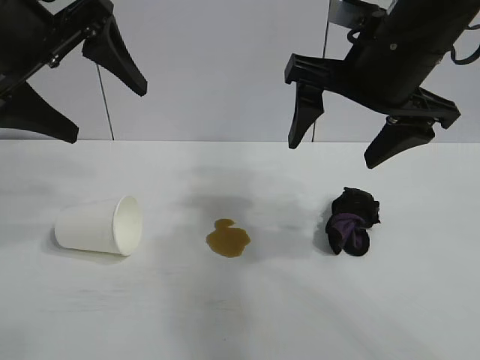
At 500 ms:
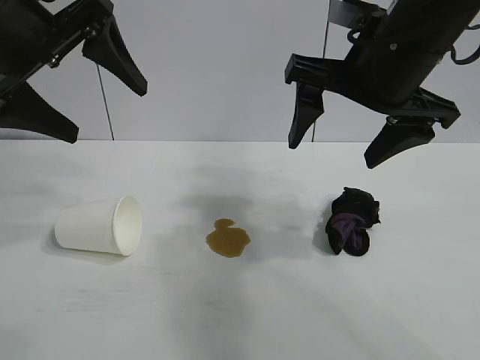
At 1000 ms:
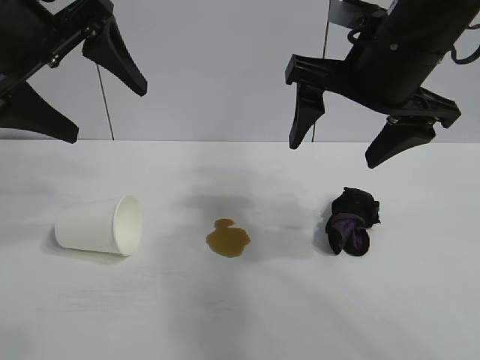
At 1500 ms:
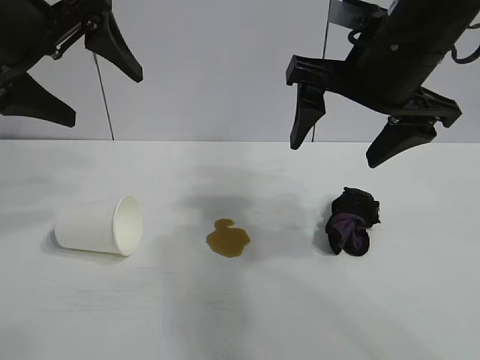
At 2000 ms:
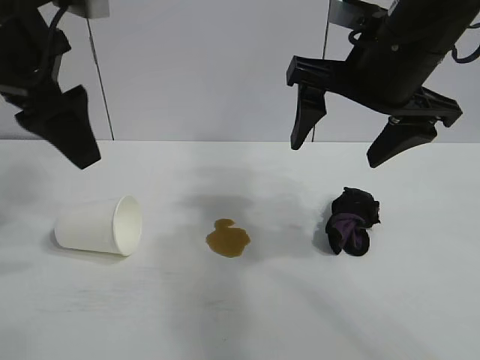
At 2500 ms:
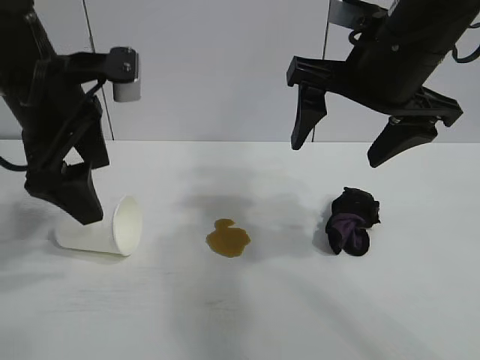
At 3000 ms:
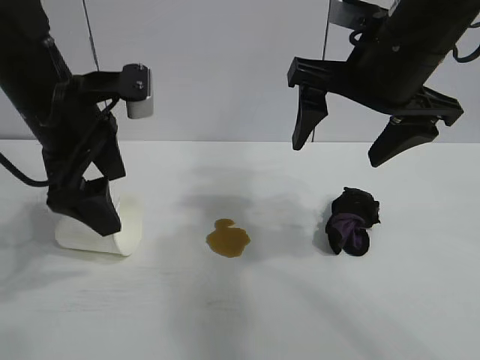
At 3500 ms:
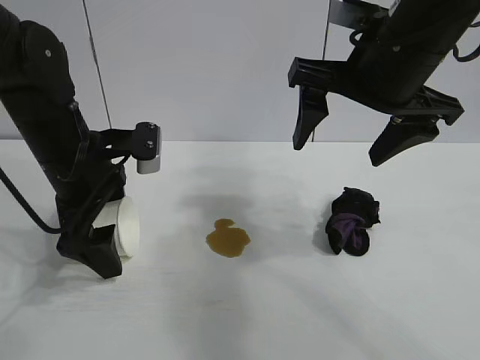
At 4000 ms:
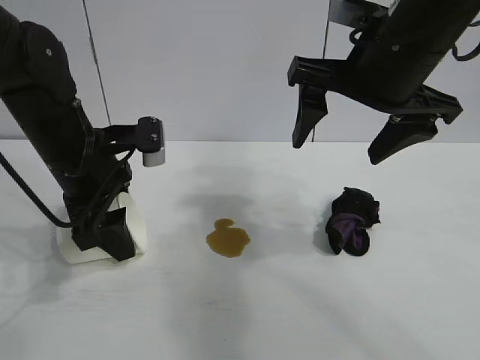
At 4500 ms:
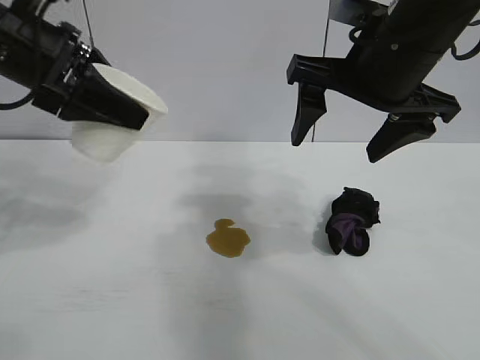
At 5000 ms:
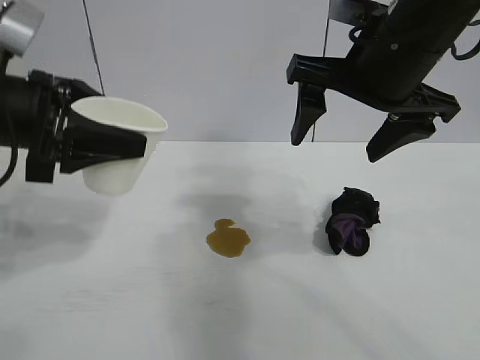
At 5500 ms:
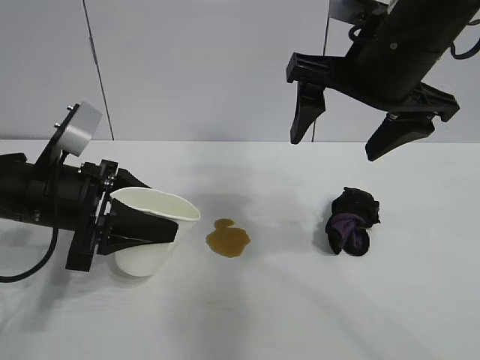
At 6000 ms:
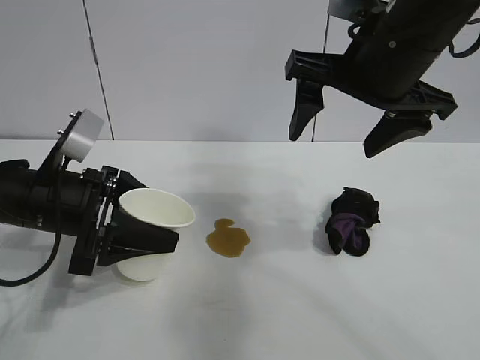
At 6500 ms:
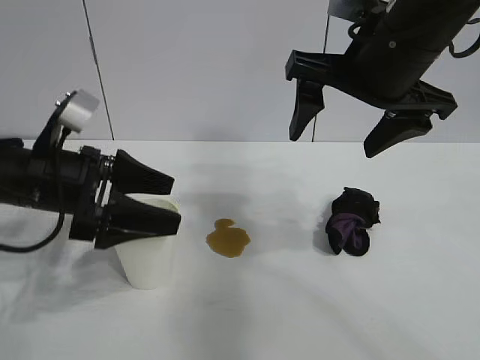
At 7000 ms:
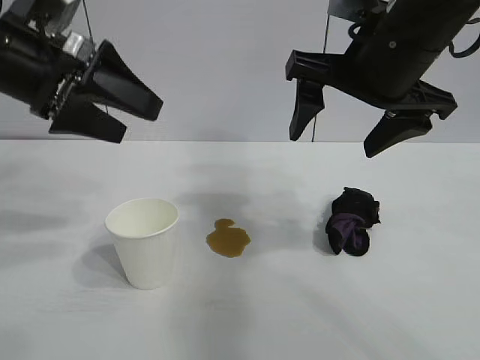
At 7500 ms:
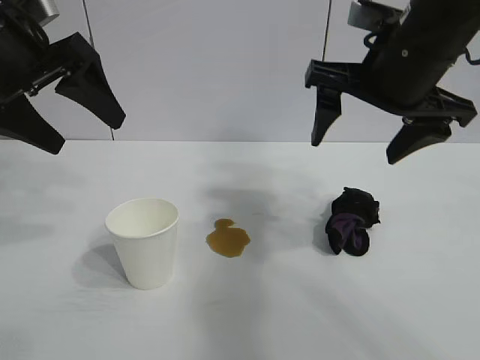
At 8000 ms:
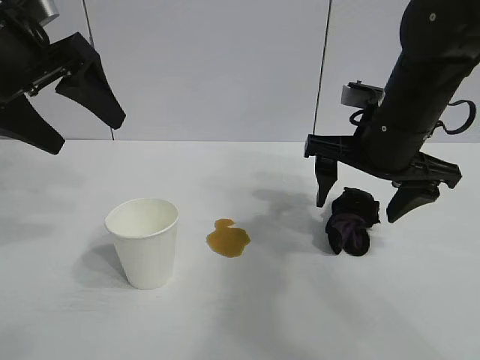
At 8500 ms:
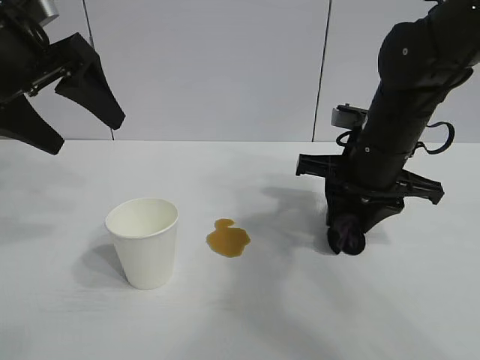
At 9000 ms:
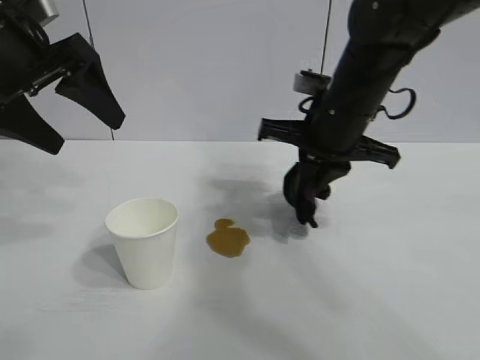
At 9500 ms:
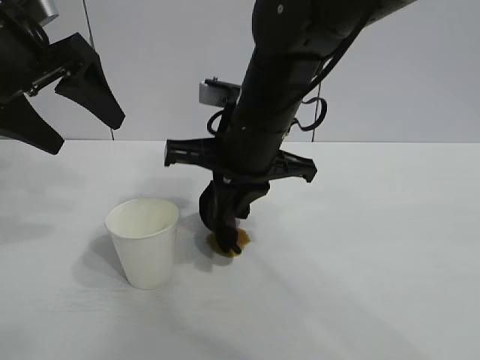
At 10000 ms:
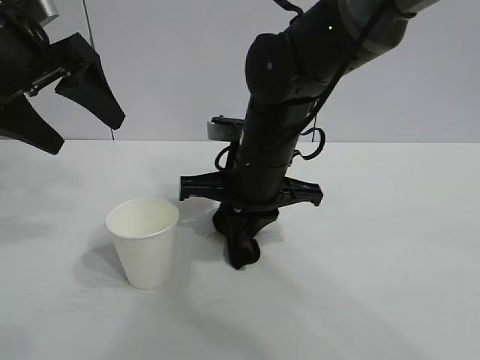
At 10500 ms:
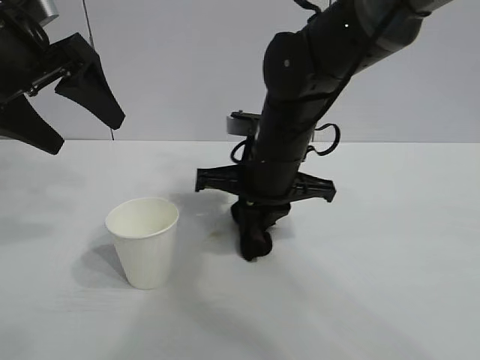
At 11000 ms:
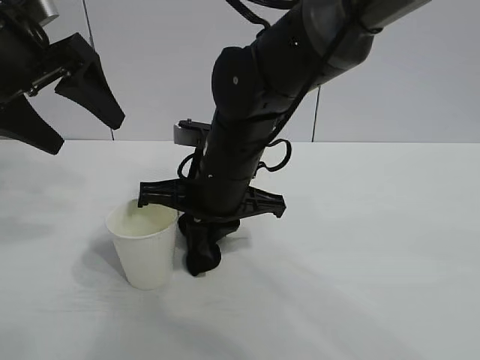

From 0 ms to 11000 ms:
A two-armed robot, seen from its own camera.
Task of the whole recording: the left gripper pick up the fallen cup and place it upright, the right gripper grasp the black rag and wipe the stain on the table, the right gripper put the black rag back in its original position.
Step, from 1500 ms to 3500 ms: Grasp the paper cup with left gripper.
Step, from 4000 ms to 6000 ms: Stand the paper cup upright with left gripper.
Step, from 6500 ms to 8500 ms: Grasp the rag with right gripper.

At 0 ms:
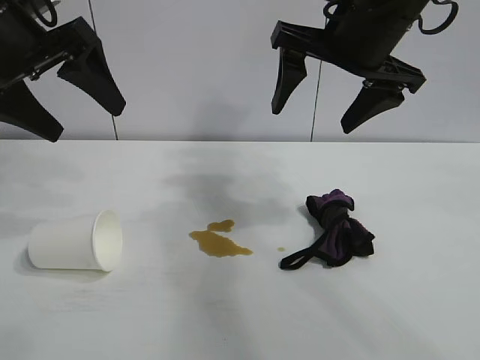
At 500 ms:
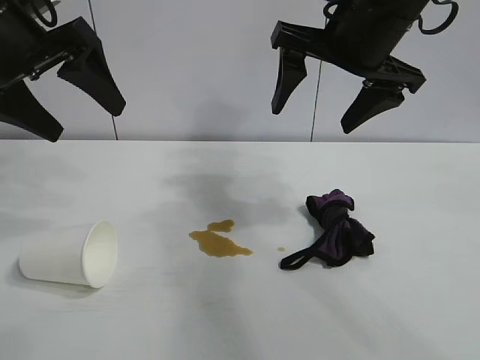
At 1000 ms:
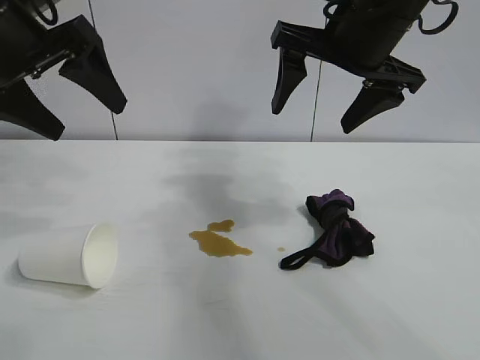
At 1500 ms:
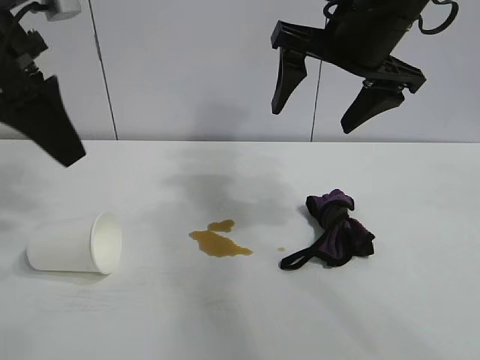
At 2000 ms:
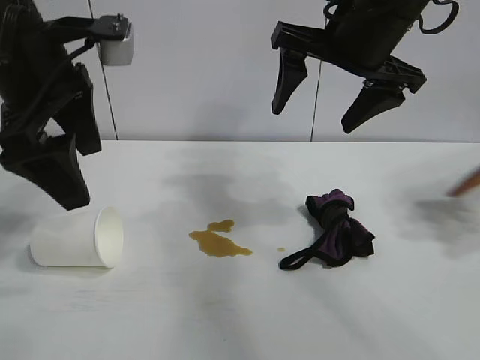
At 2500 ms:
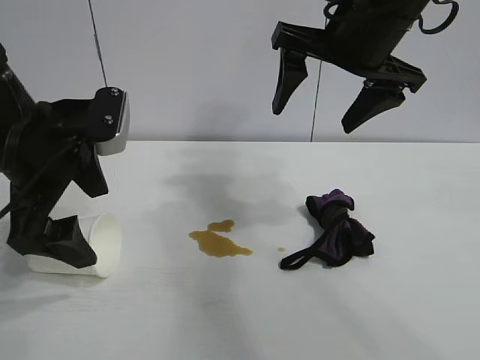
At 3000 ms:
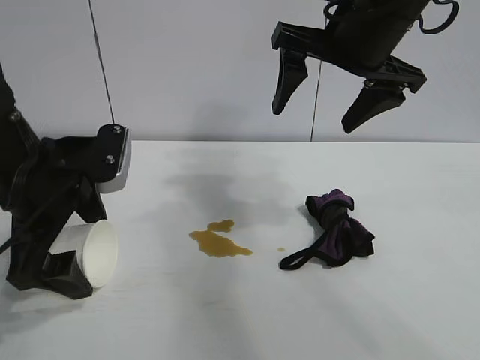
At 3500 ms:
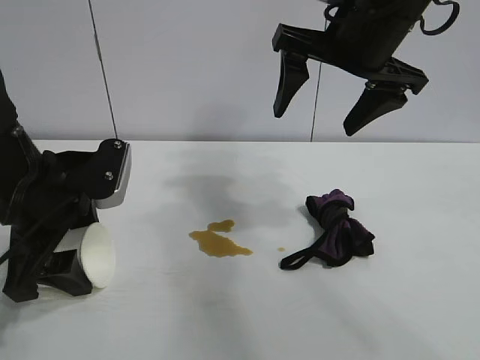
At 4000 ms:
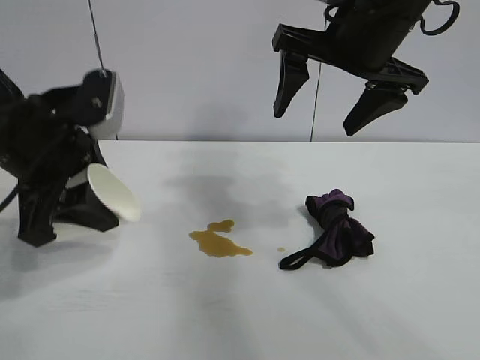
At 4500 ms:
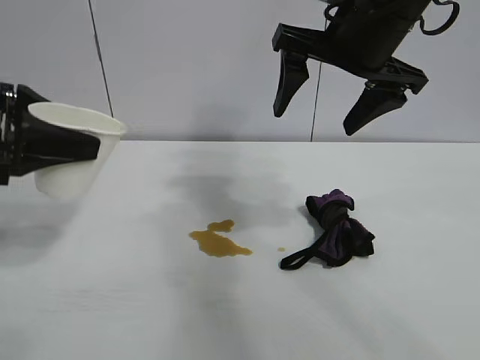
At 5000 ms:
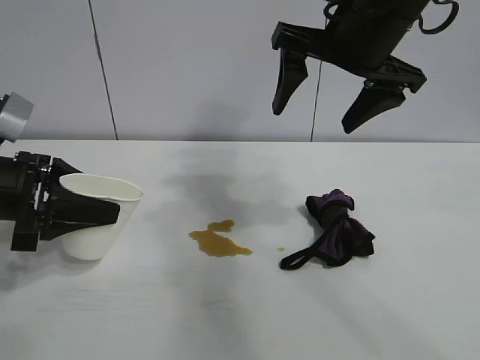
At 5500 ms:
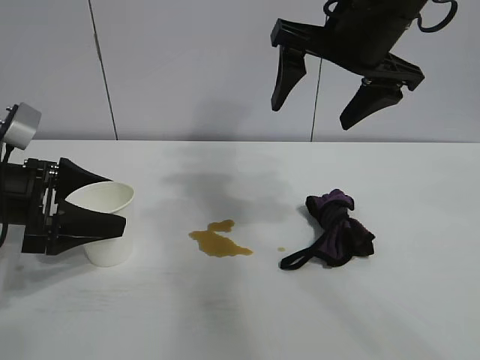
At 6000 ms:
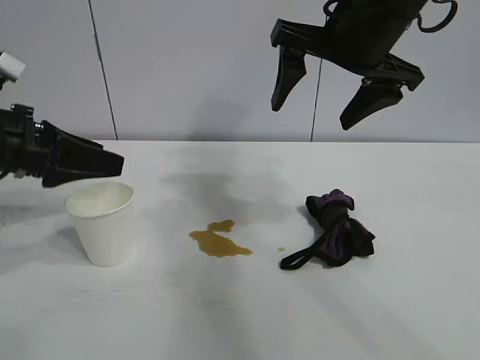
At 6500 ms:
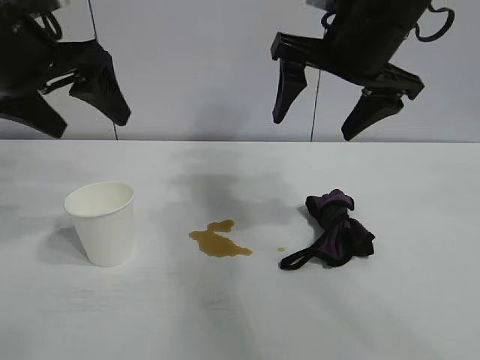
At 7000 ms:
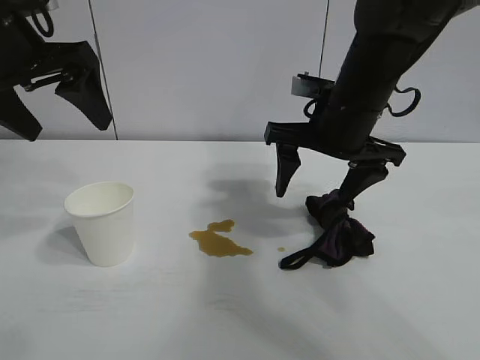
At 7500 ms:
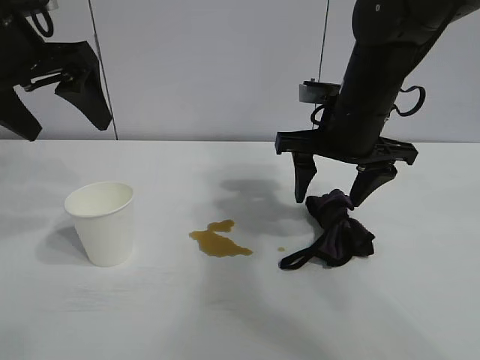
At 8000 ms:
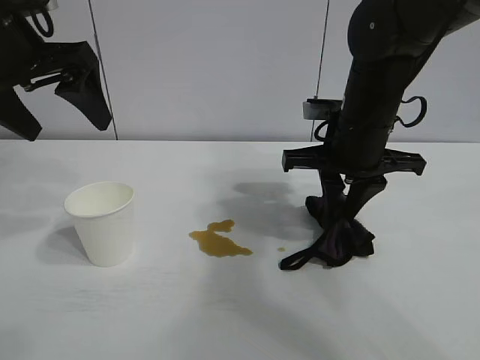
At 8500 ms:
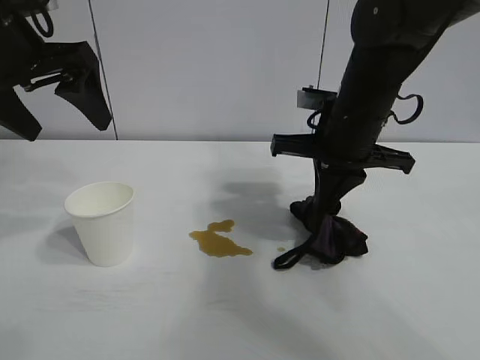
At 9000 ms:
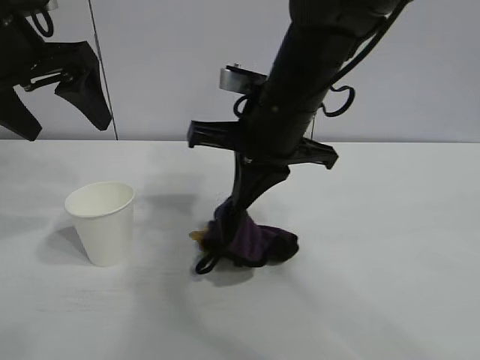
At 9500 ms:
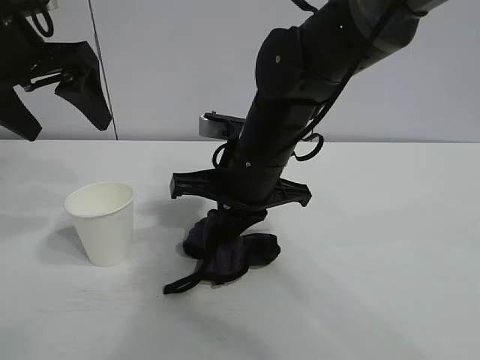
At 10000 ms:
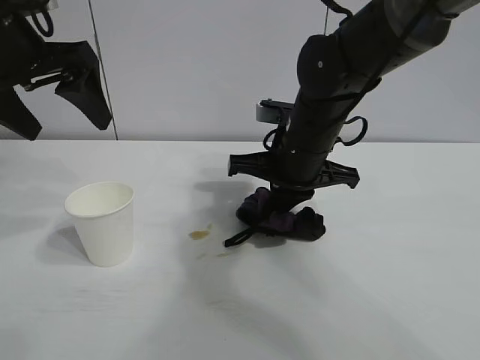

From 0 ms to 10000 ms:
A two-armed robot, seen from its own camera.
Task of the whole recording: the left gripper pick up the fallen cup and place it upright, the right gripper grasp the black rag and wipe the stain on the table, the right gripper put the black rag back in its original position.
Step, from 1000 ms to 3500 ms: Grasp the paper cup with left gripper.
Step, from 4000 ms to 5000 ms: Stand the paper cup upright with left gripper.
Step, from 6000 ms to 8000 ms: Grasp the rag with right gripper.

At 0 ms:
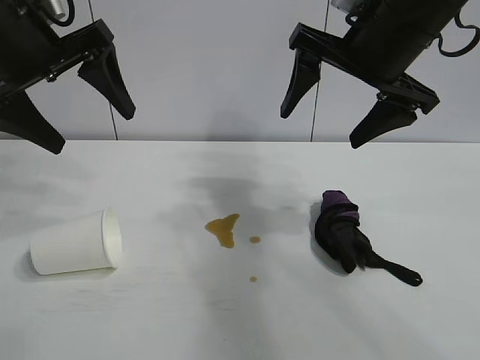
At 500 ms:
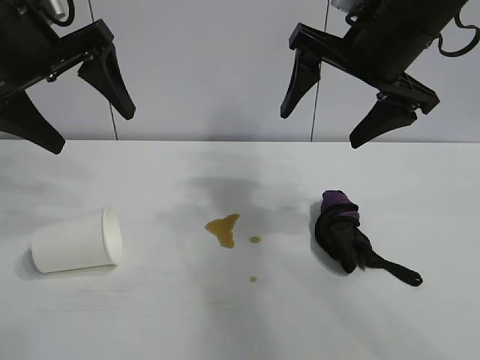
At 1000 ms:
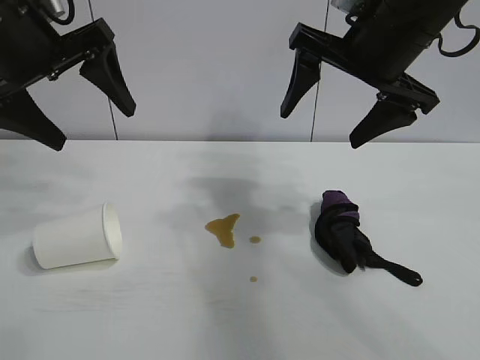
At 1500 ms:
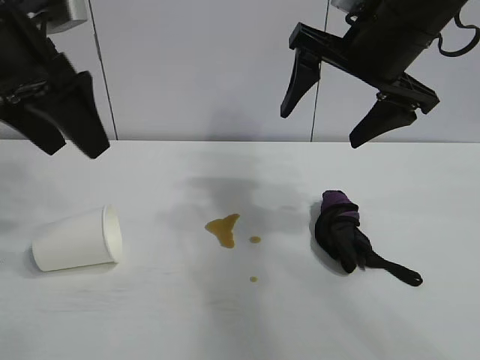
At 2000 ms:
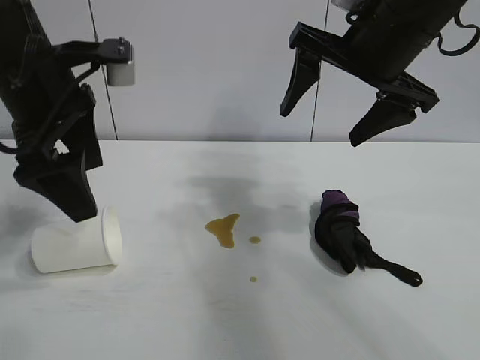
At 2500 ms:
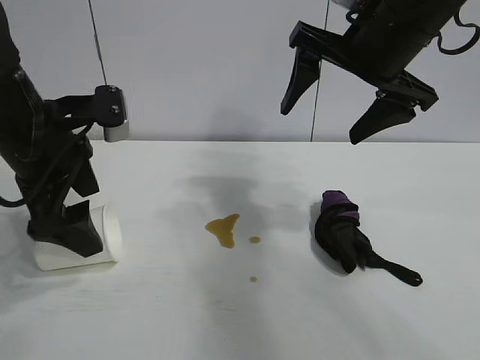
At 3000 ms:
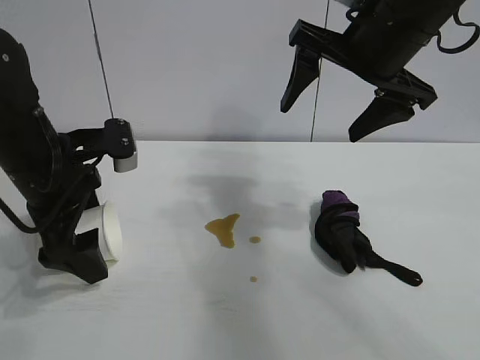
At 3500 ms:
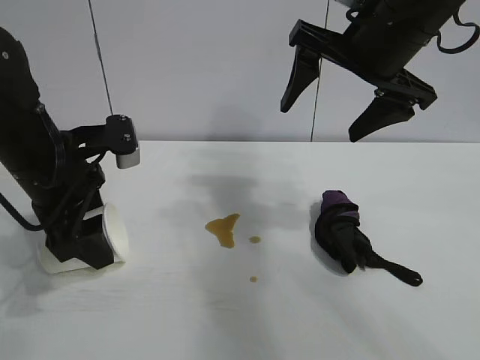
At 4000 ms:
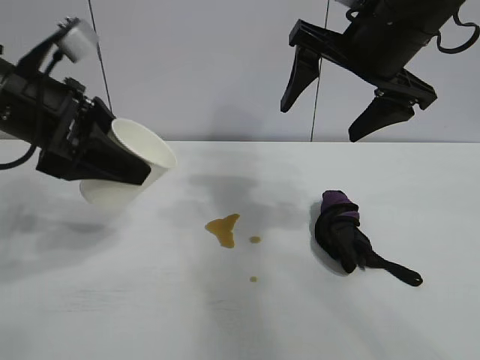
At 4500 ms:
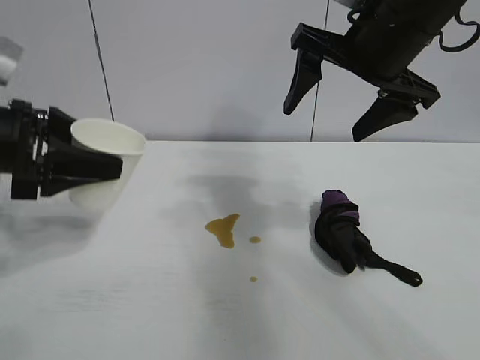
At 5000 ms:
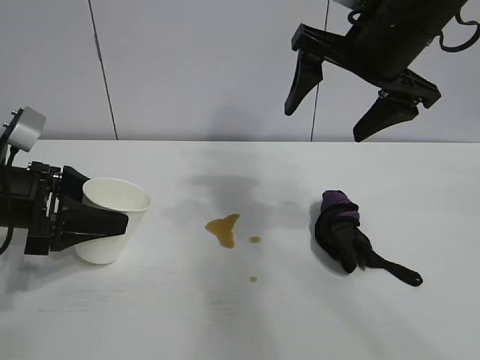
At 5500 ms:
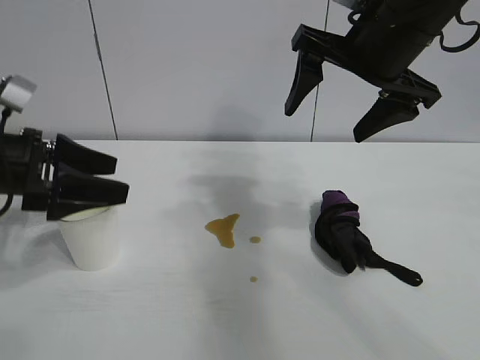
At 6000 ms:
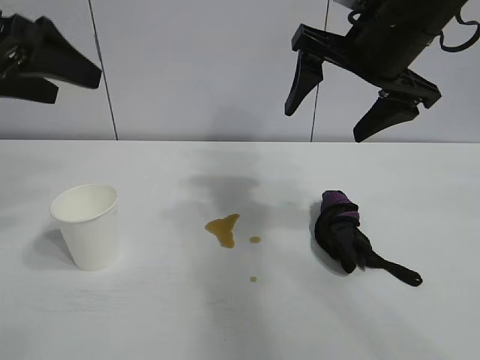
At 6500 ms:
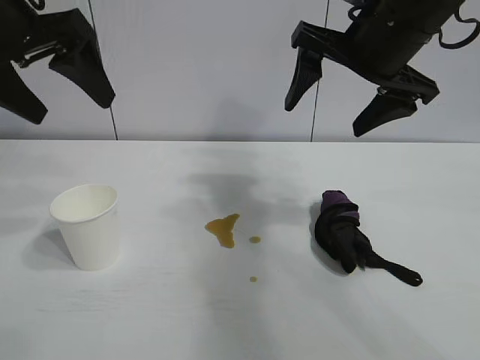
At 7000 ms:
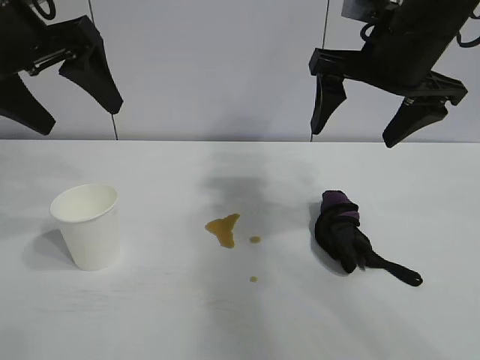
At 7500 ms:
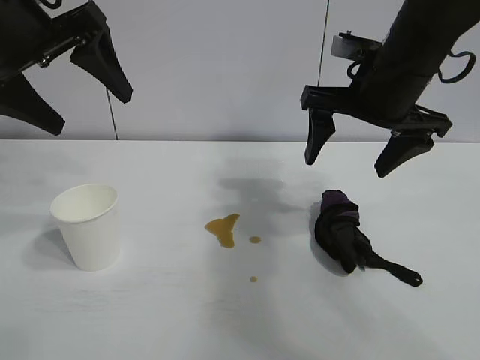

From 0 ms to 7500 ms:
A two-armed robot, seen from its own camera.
Task of the whole recording: the left gripper pick up the fallen cup and place it upright, the right gripper grasp the black rag and wipe the stain on the table, the right gripper put the black rag back in its original position.
Step, from 1000 ms to 3000 ms: Grasp the paper cup with left gripper.
Step, from 3500 ms to 5000 ms: Stand the paper cup upright with left gripper.
